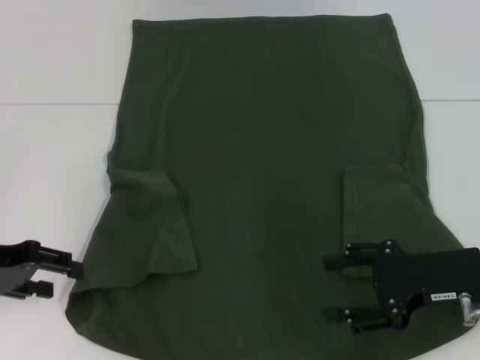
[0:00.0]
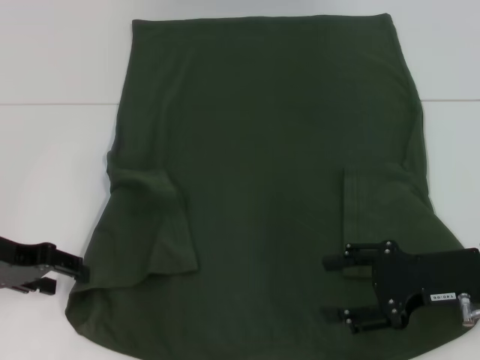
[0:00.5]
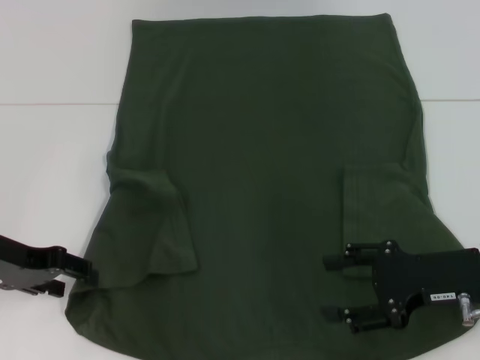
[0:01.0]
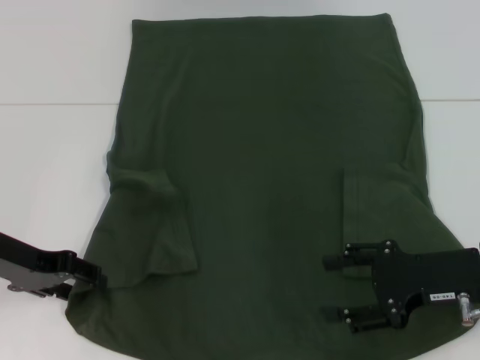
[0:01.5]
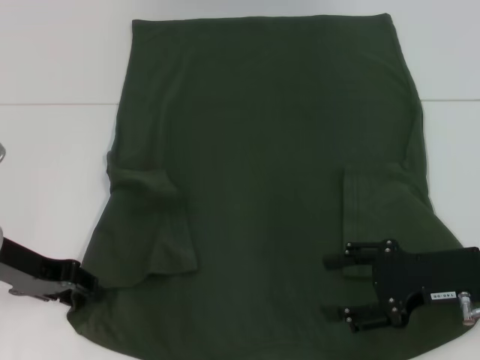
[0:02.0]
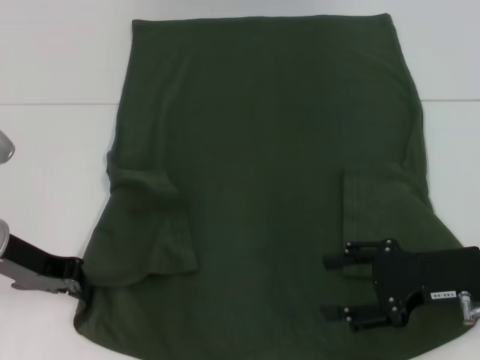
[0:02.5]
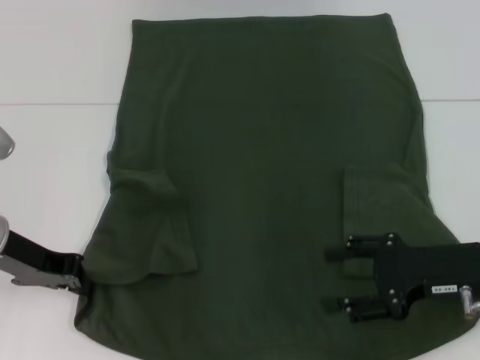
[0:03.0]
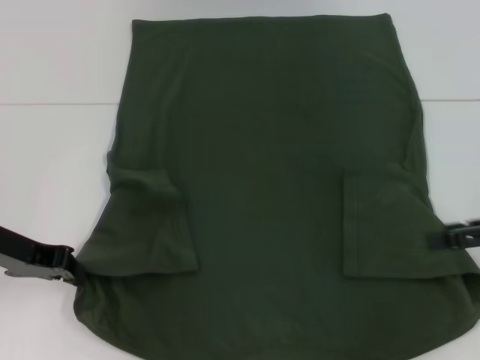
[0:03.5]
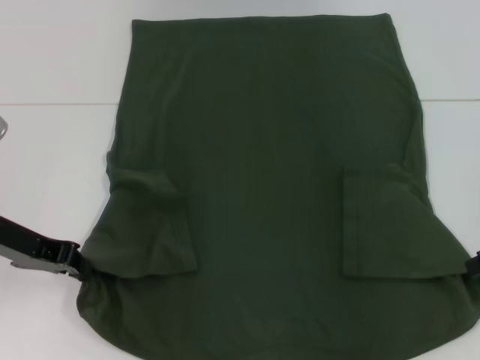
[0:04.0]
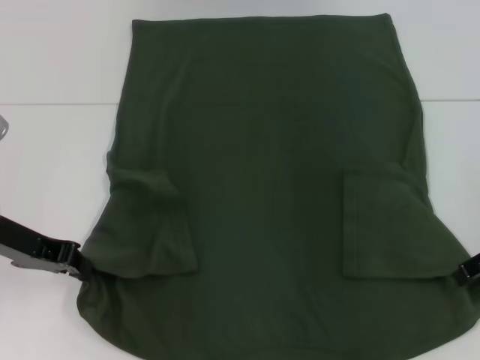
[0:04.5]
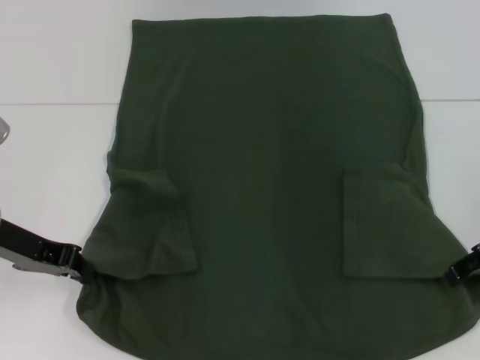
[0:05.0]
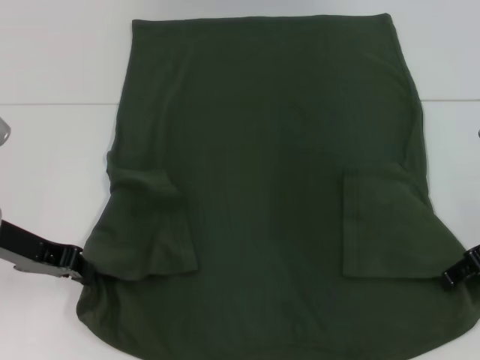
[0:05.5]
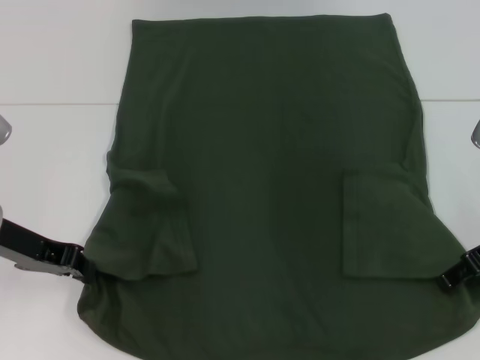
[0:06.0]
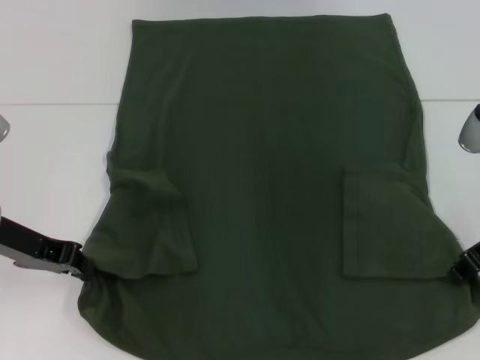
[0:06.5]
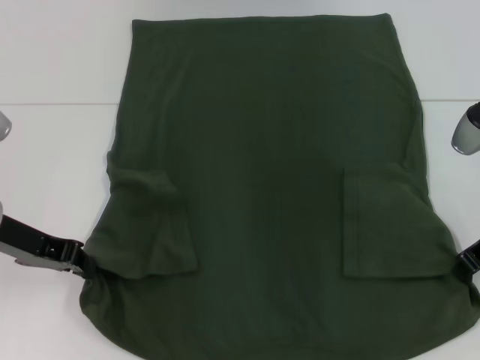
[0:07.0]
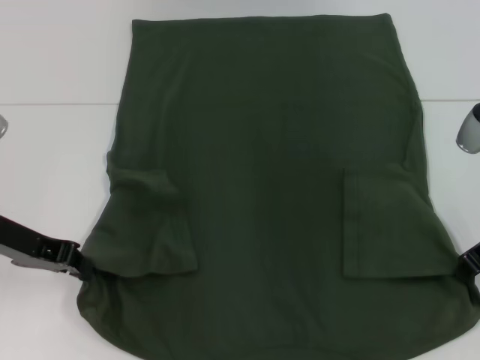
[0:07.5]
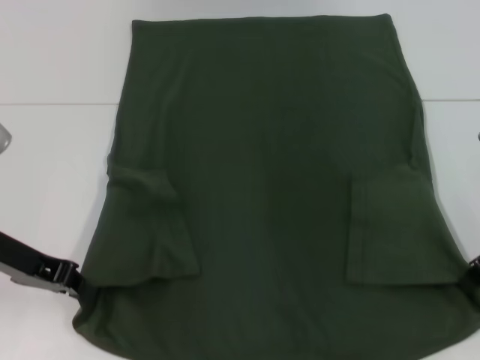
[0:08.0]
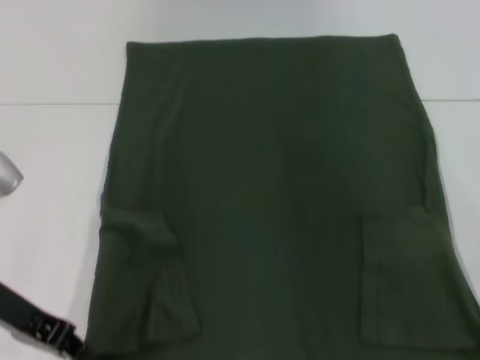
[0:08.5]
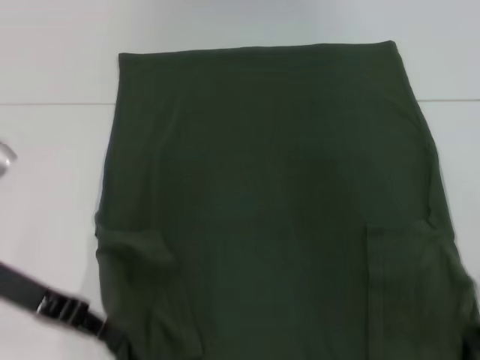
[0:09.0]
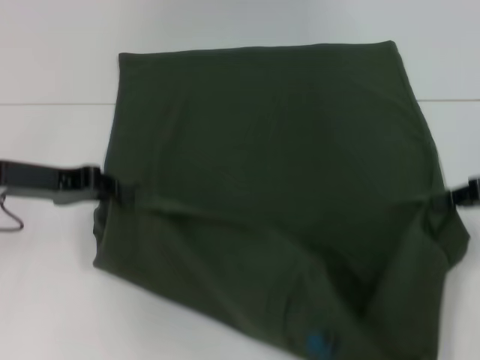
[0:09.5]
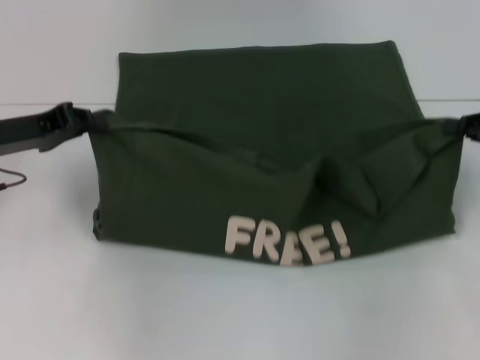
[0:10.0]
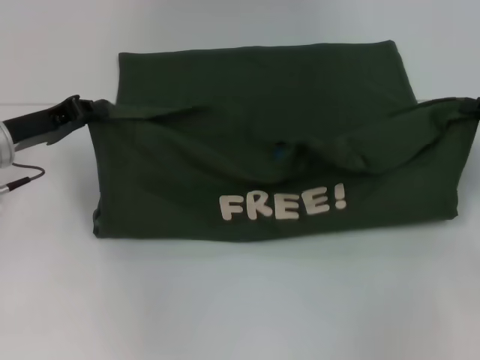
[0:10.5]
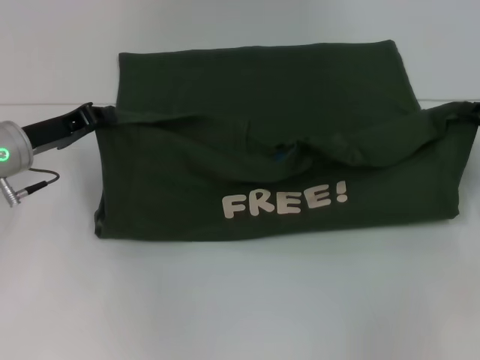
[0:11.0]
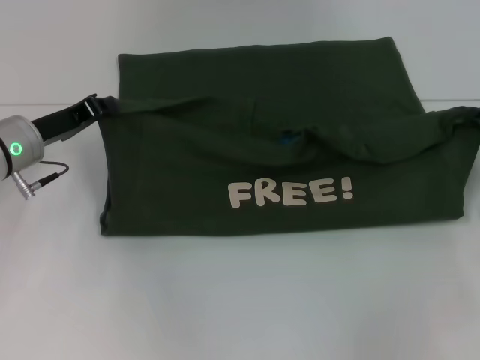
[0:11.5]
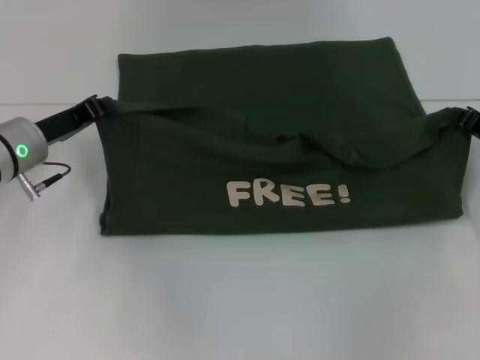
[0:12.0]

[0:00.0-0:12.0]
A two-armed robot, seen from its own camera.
Step, 0:00.0 to 0:03.0: Grab the bottom left corner with your left hand.
Step, 0:03.5 to 0:07.5: Grab the bottom right corner with your right hand.
0:00.0 to 0:02.0: The left gripper ends up roughly 5 cm from where it was.
0:02.0 to 0:04.0: The left gripper closes up; the right gripper is displaced to the right and upward by some 10 cm.
0:06.0 to 0:08.0: The right gripper closes up.
0:08.0 to 0:10.0: The right gripper moves to the right, roughly 5 cm. The left gripper moves about 5 cm.
0:10.0 to 0:12.0: The right gripper shifts approximately 5 cm downward. The left gripper moves roughly 5 cm.

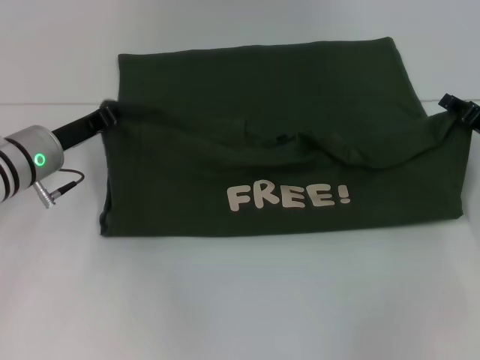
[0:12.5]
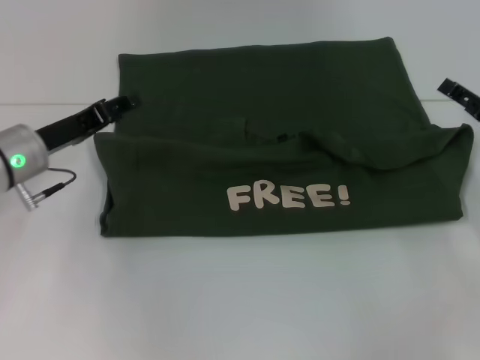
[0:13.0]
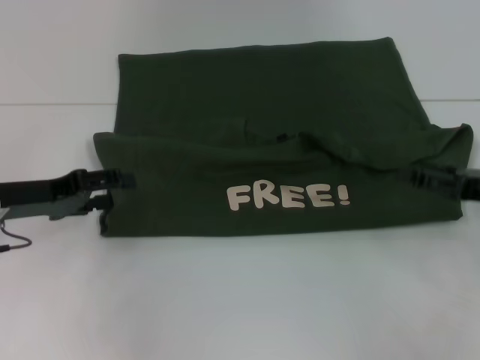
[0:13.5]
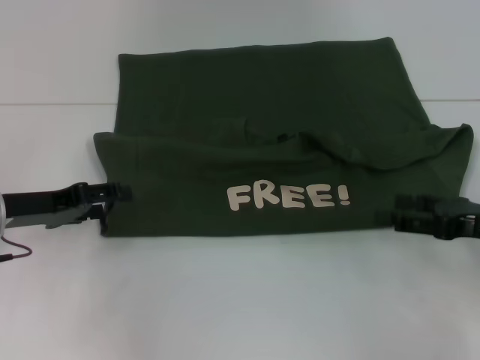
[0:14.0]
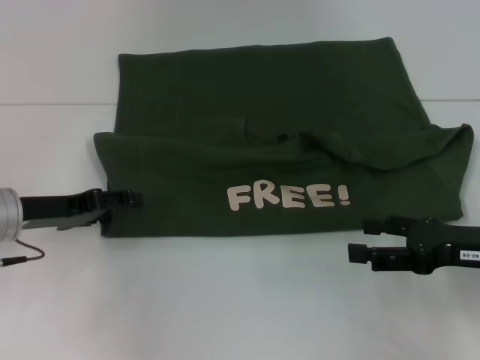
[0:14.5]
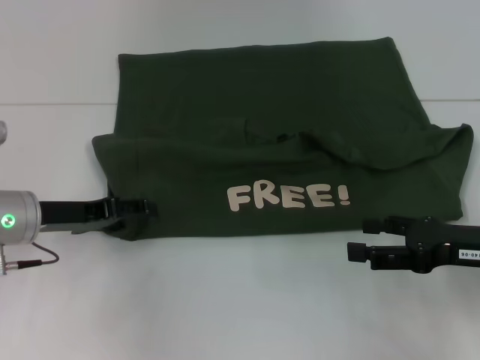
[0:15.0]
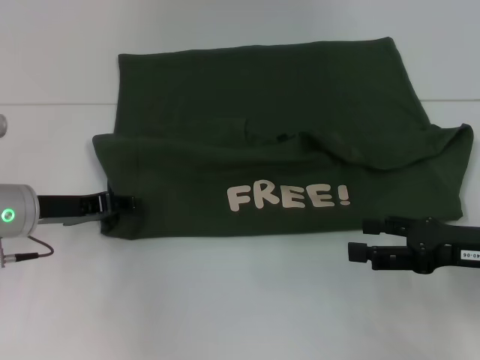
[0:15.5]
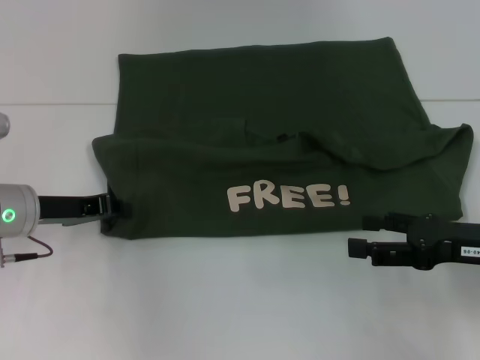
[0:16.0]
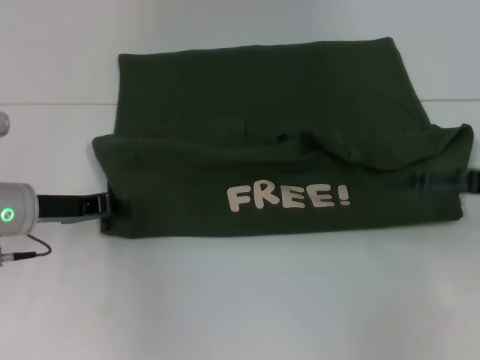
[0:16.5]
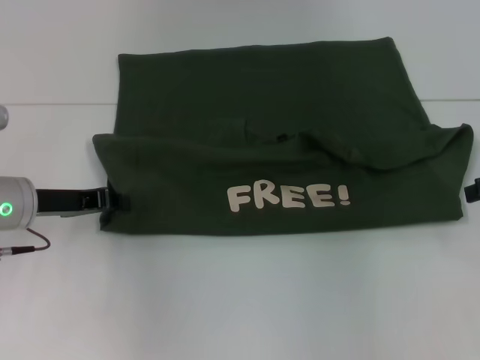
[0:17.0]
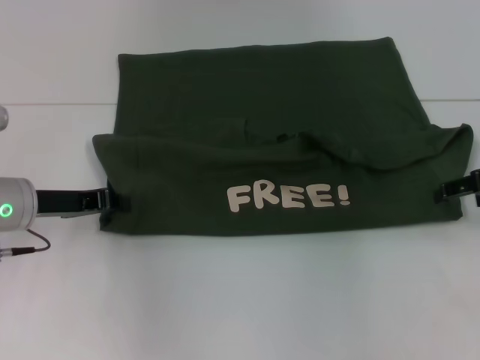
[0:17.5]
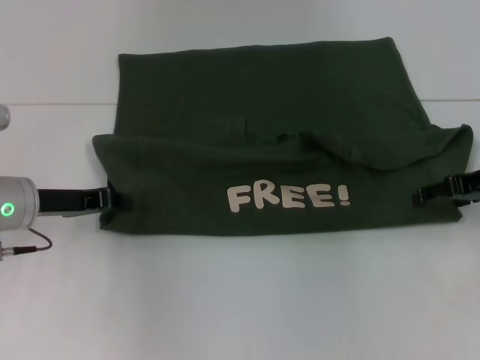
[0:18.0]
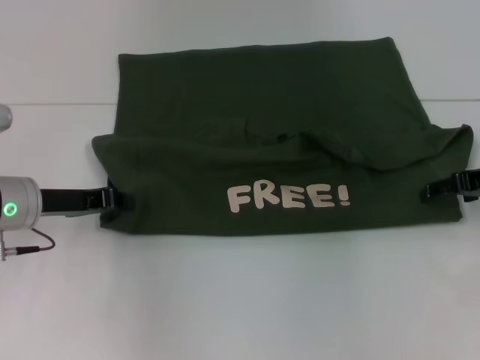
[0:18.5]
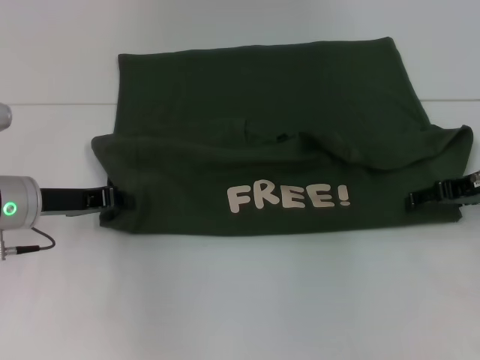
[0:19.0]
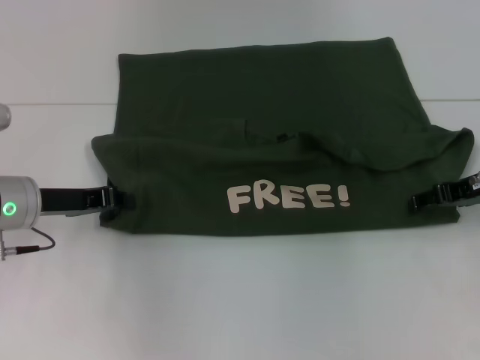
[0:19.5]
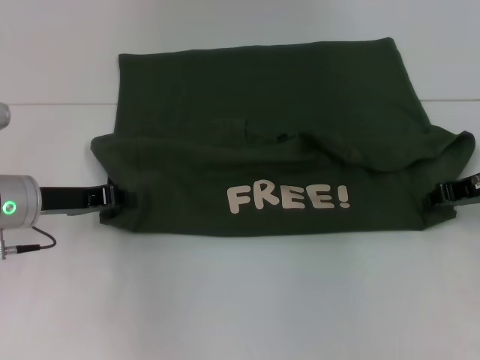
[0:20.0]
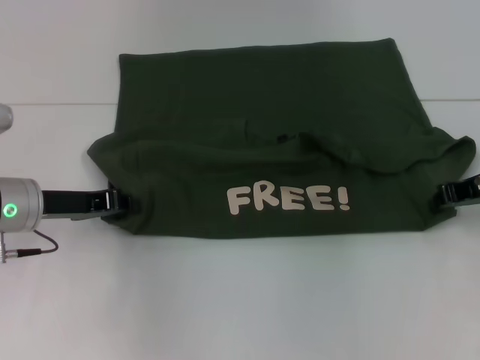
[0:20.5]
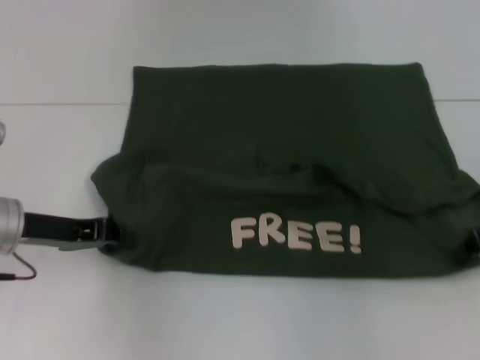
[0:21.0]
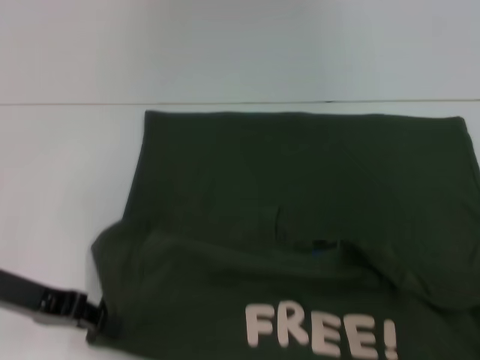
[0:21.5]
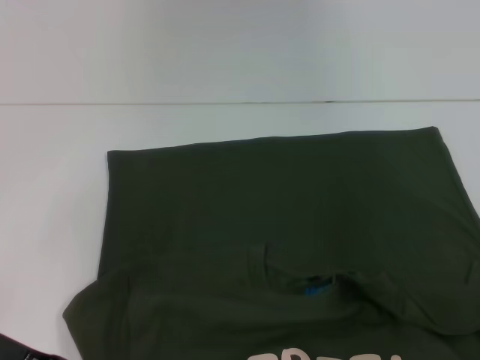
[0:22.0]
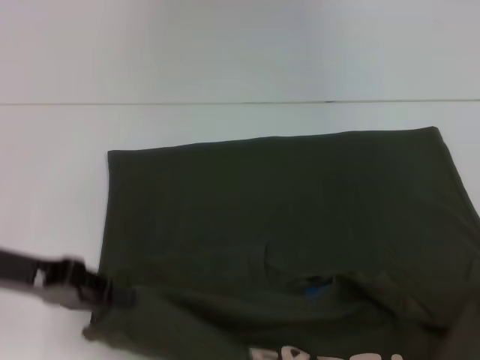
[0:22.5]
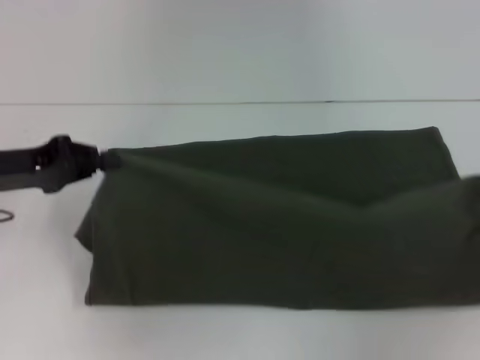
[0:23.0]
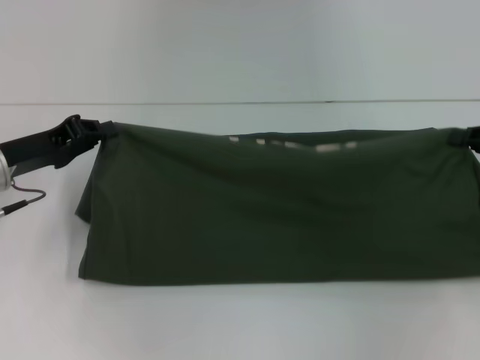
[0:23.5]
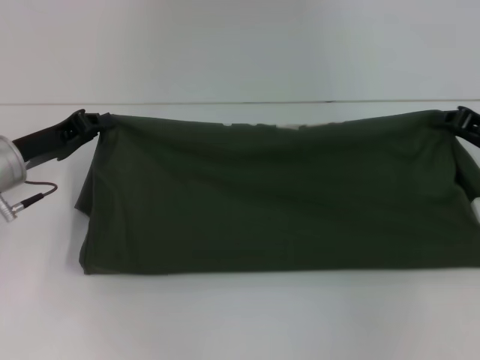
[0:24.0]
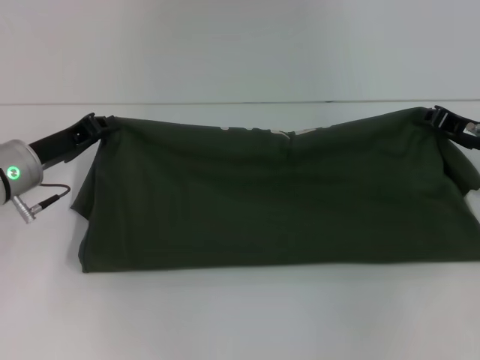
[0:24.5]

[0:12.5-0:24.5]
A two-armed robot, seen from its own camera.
Step, 0:13.5 to 0:21.5: Pull the clothes with your left hand.
Step, 0:13.5 to 0:21.5: Pull the clothes with your right hand.
0:12.5 to 0:14.5: The right gripper shifts roughly 10 cm backward, and opens its fingers. The left gripper heads backward, covering roughly 5 cm, and opens its fingers.
0:14.5 to 0:16.5: The right gripper is displaced upward by roughly 5 cm. The left gripper closes.
0:18.5 to 0:20.5: The right gripper closes its fingers.
0:20.5 to 0:22.5: The right gripper goes about 10 cm backward and to the right, while the left gripper goes roughly 5 cm backward.
0:22.5 to 0:24.5: The left gripper is displaced forward and downward by approximately 10 cm. The right gripper moves forward, to the left and downward, about 15 cm.

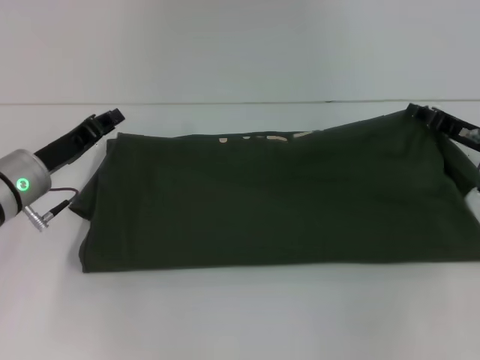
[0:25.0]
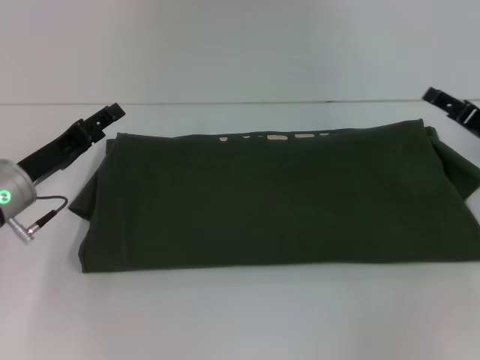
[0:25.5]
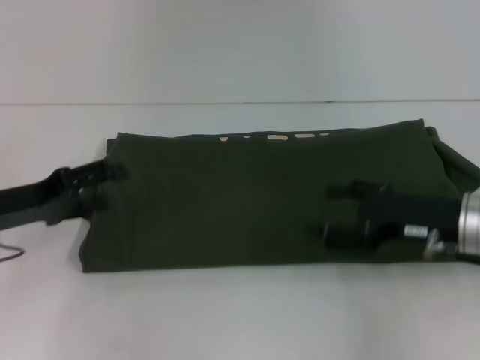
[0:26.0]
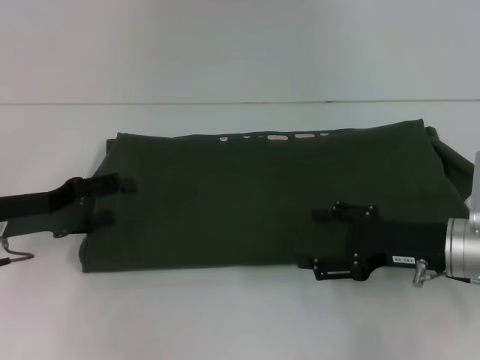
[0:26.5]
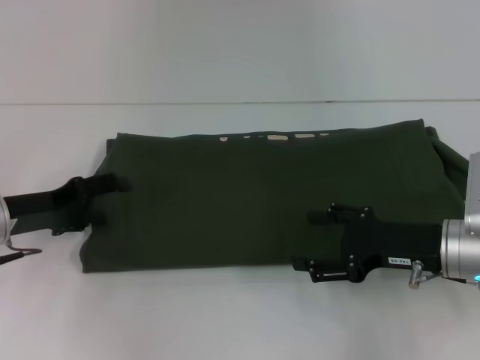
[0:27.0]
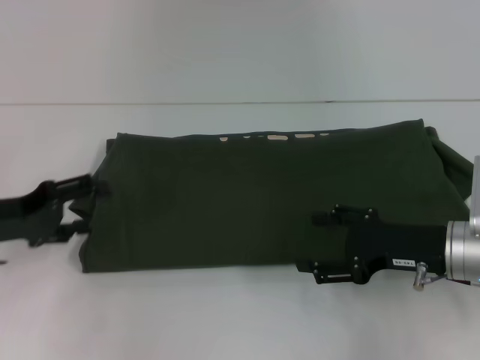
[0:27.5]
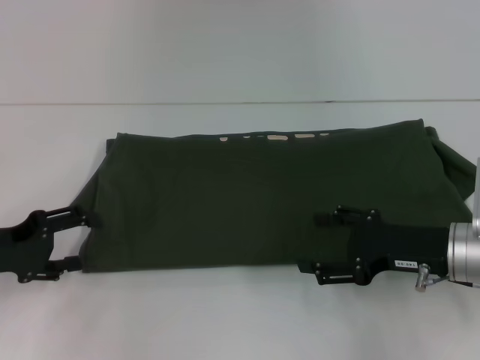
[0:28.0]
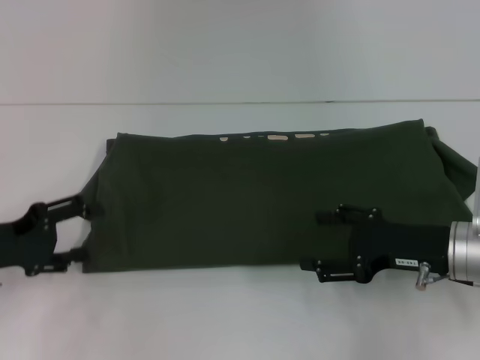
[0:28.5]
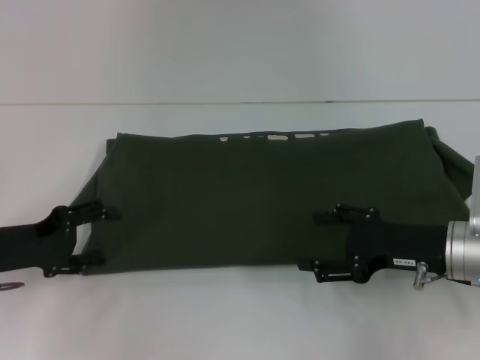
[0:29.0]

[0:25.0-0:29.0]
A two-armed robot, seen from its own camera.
0:25.0 to 0:27.0: The right gripper is displaced backward and to the left by some 10 cm, and opens its fingers, while the left gripper opens up.
0:27.0 to 0:29.0: The grippers make only small movements.
